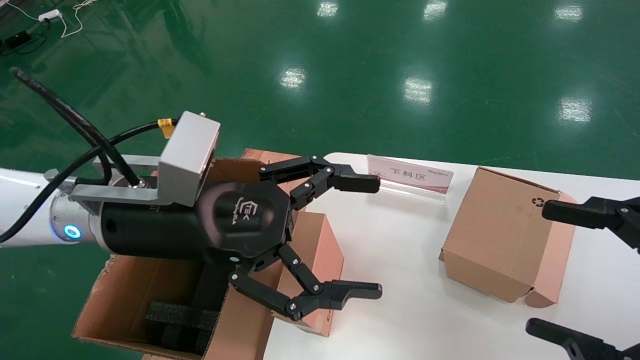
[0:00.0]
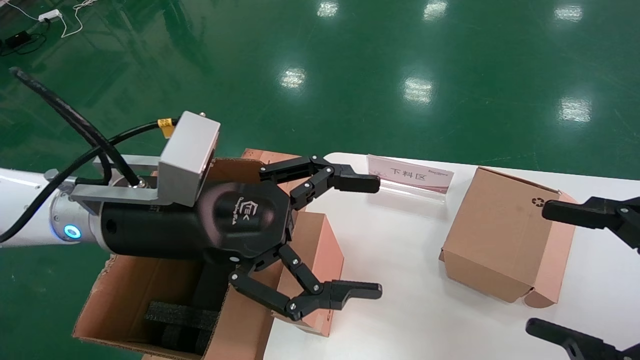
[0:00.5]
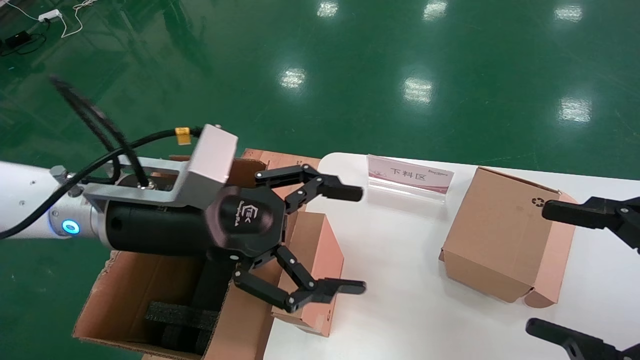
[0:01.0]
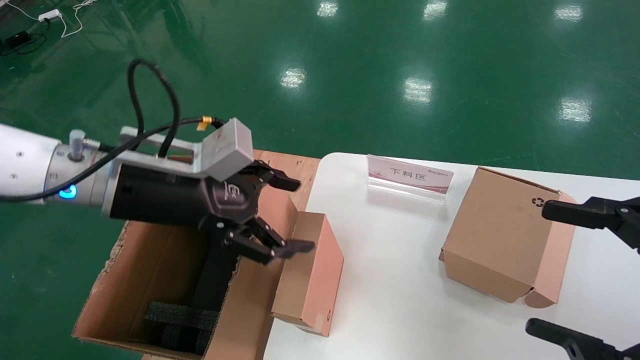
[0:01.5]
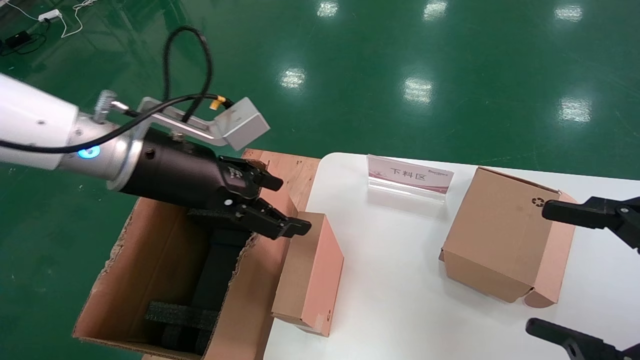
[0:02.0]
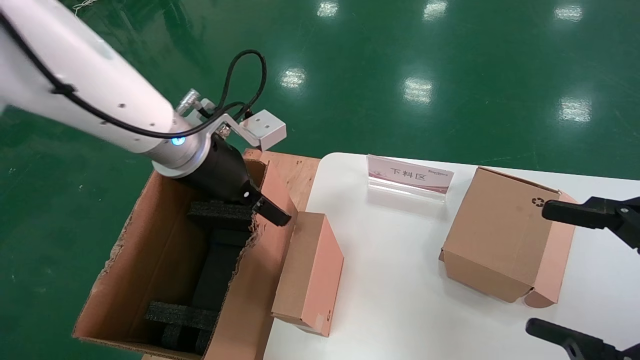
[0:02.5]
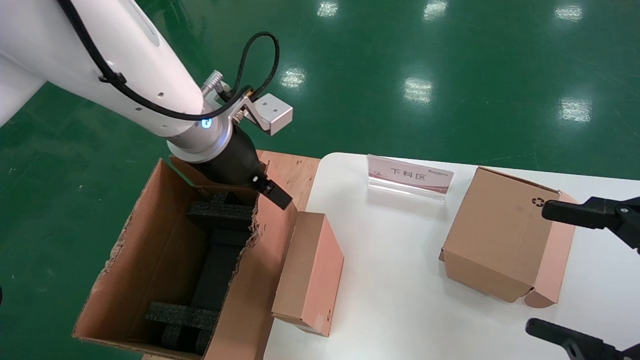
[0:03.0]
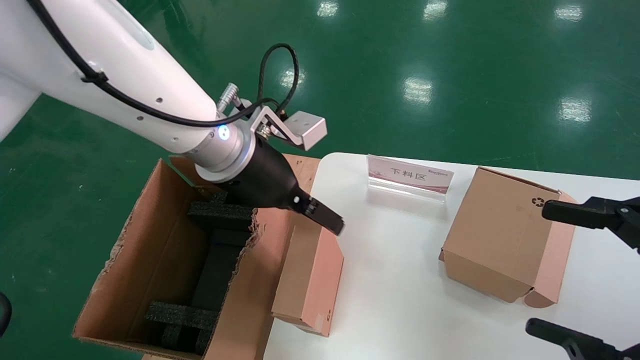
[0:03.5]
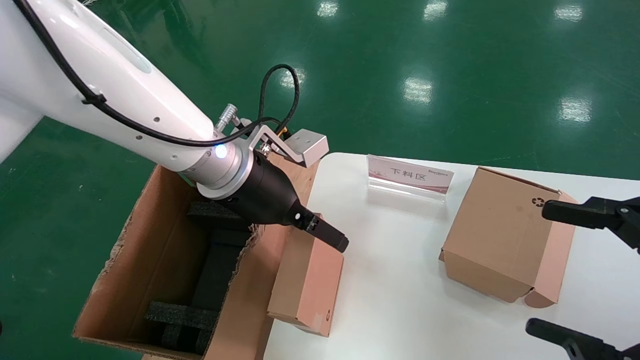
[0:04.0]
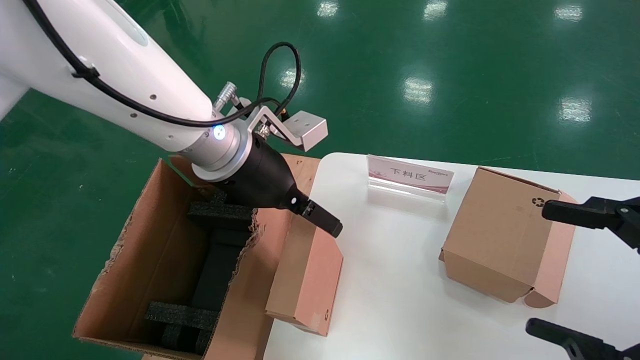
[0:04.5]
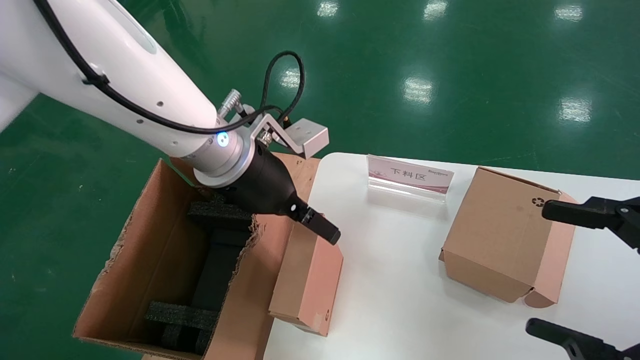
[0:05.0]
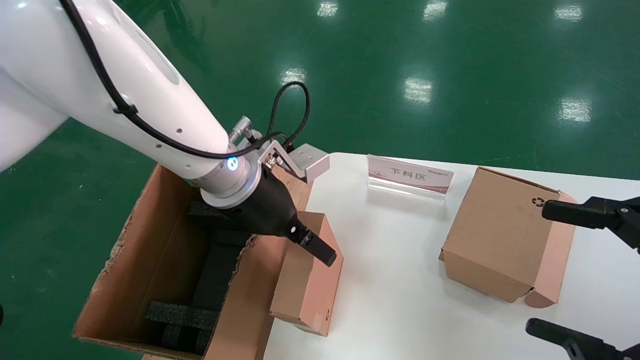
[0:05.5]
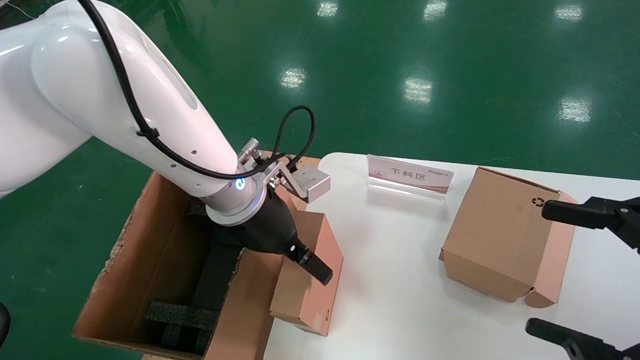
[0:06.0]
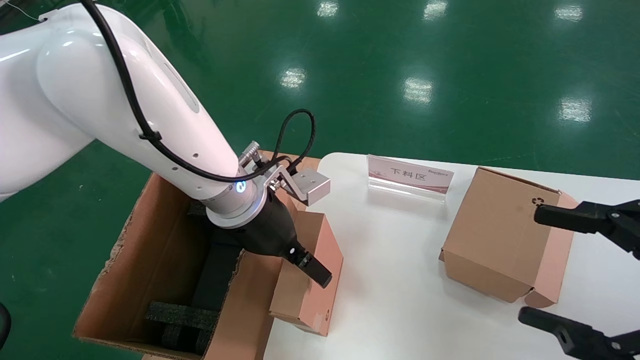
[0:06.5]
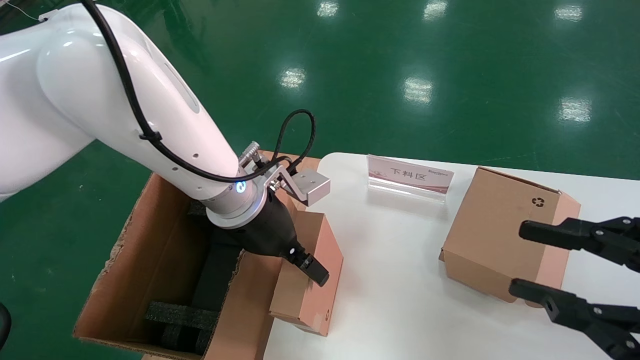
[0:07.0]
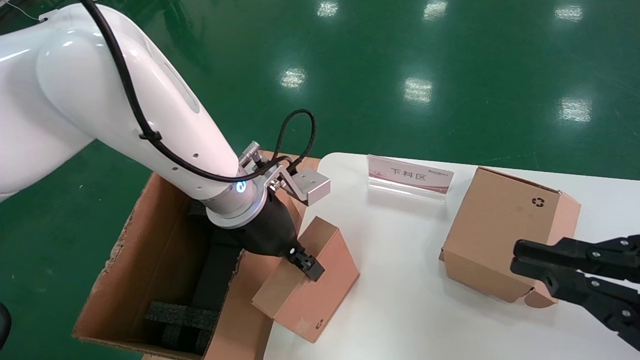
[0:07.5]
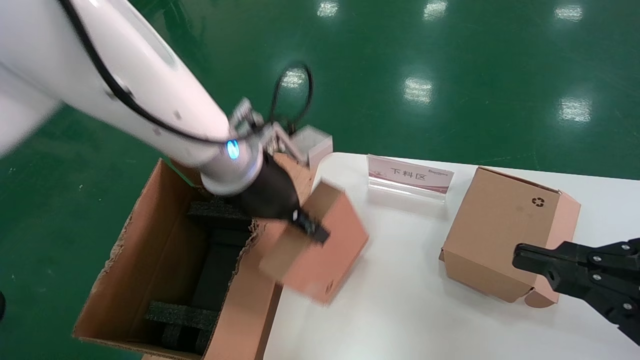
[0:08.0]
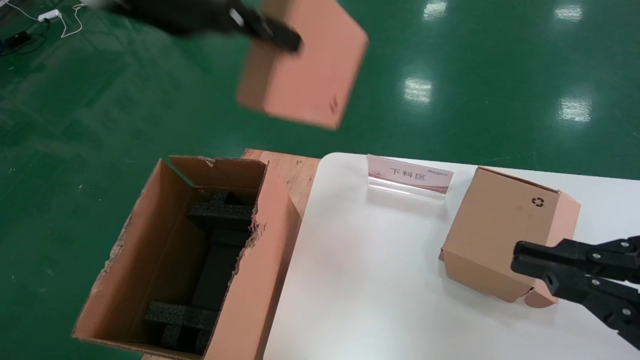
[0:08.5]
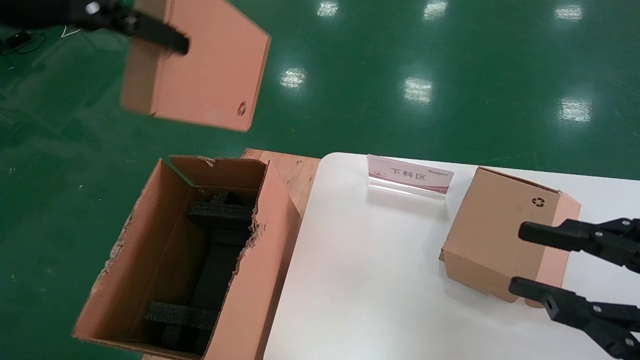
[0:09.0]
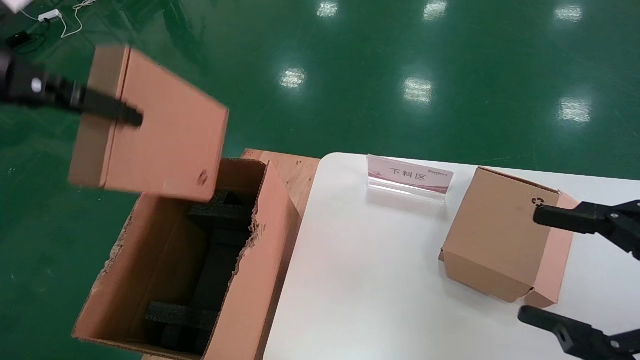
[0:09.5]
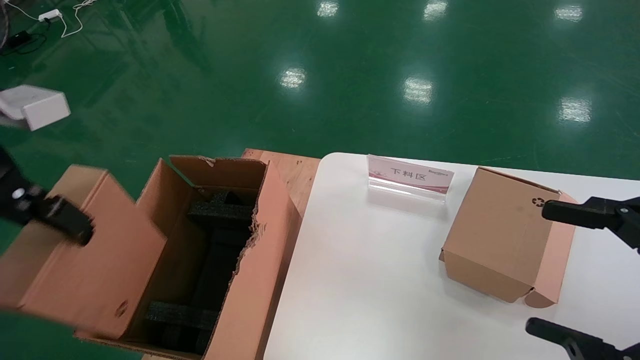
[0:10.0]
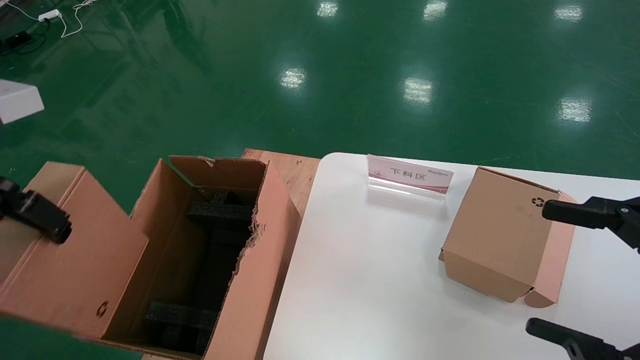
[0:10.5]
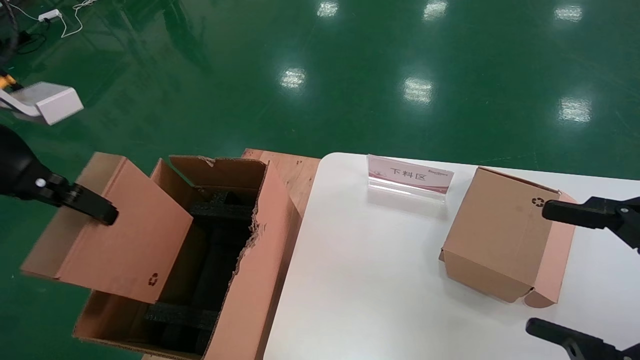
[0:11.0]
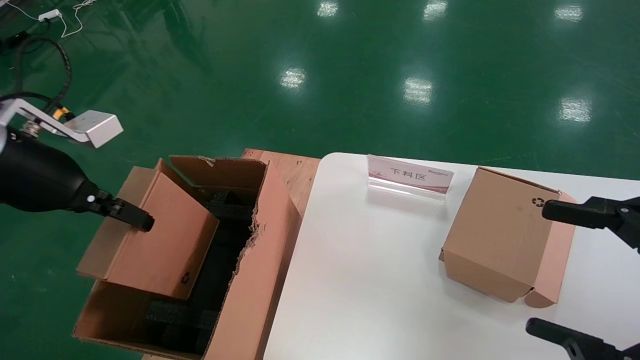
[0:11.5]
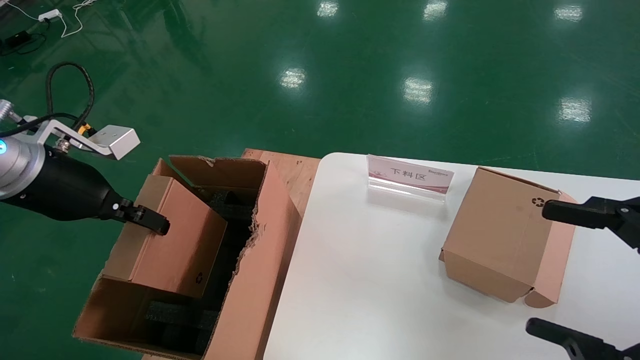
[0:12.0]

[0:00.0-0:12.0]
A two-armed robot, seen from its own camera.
Task of the whole recording: put the box on the table into the big box.
Step, 0:00.0 to 0:07.5: Grasp the paper box.
0:00.0 to 0:02.0: The left gripper heads forward, covering roughly 5 cm.
0:02.0 to 0:04.0: The left gripper shifts some 10 cm to the right.
0:04.0 to 0:06.0: The grippers stay close to where they were, moving slightly.
0:06.0 to 0:08.0: The left gripper shifts approximately 10 cm upward, and closes its fingers; the right gripper closes.
0:08.0 to 0:10.0: The right gripper opens up, while the left gripper moves to the left and backward, roughly 25 cm.
0:10.0 to 0:12.0: The left gripper moves forward and downward, approximately 15 cm.

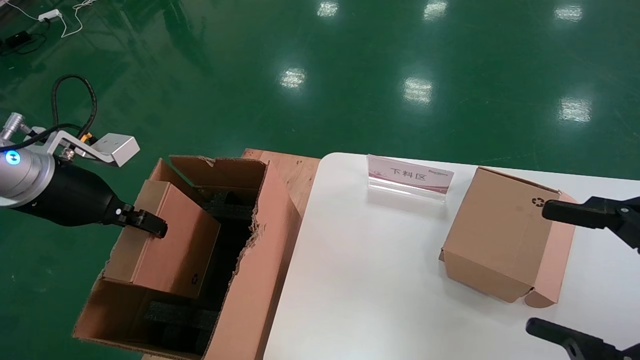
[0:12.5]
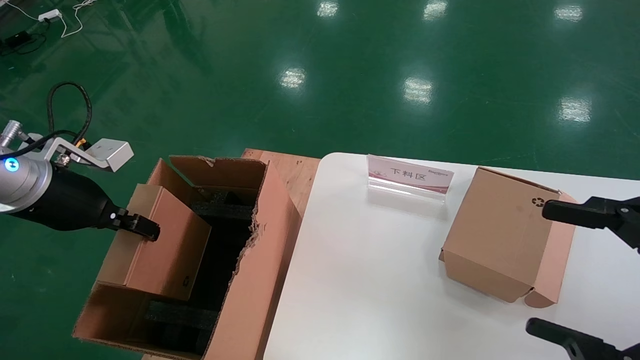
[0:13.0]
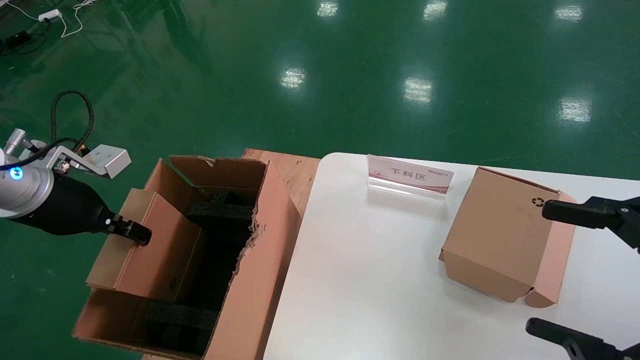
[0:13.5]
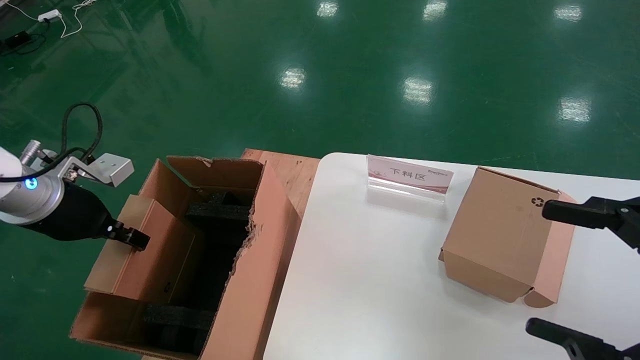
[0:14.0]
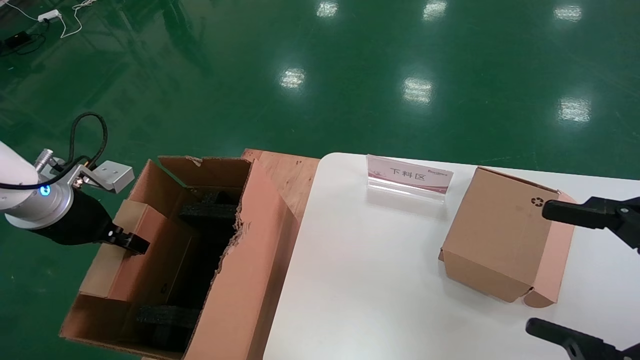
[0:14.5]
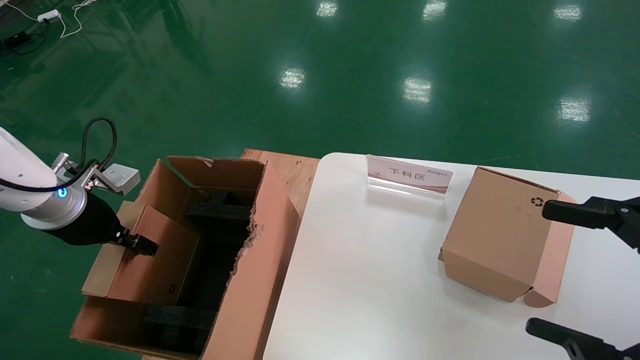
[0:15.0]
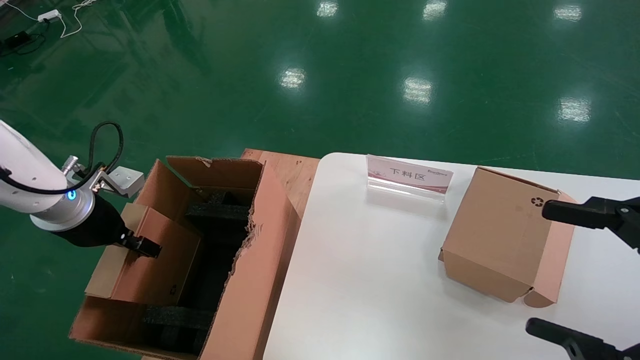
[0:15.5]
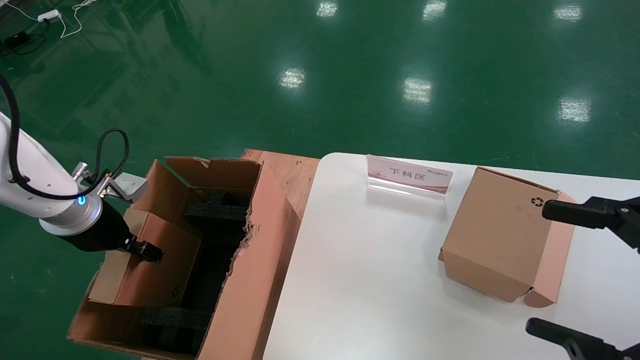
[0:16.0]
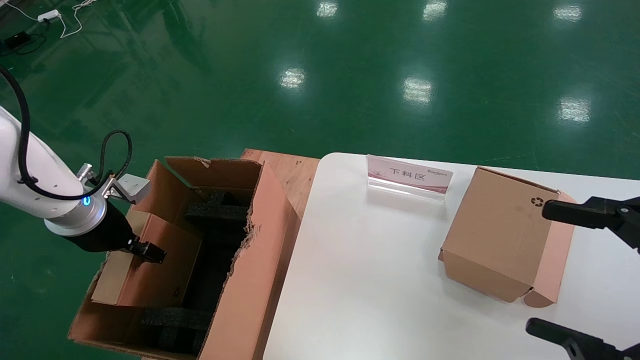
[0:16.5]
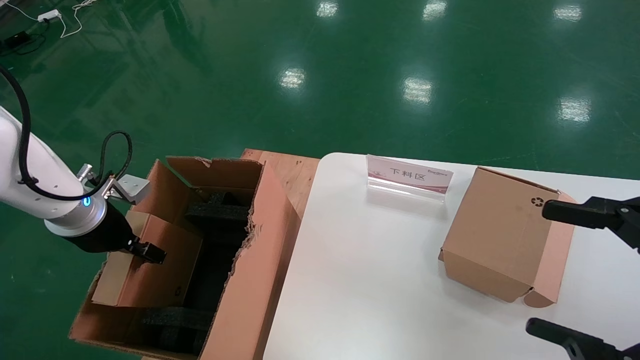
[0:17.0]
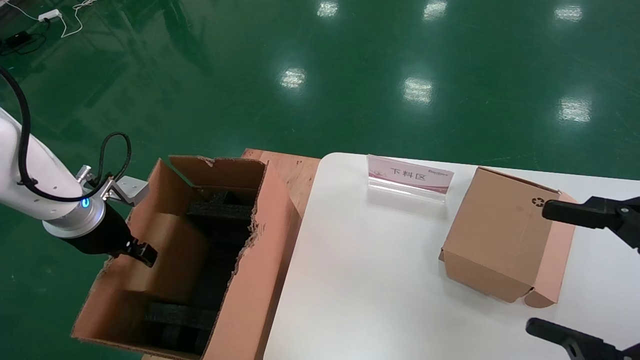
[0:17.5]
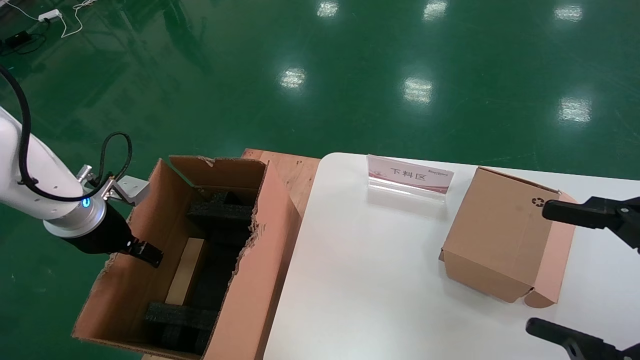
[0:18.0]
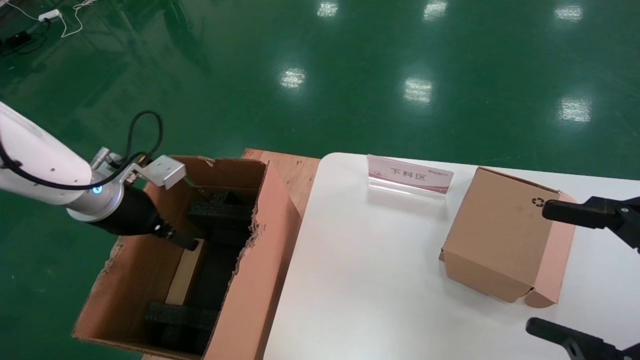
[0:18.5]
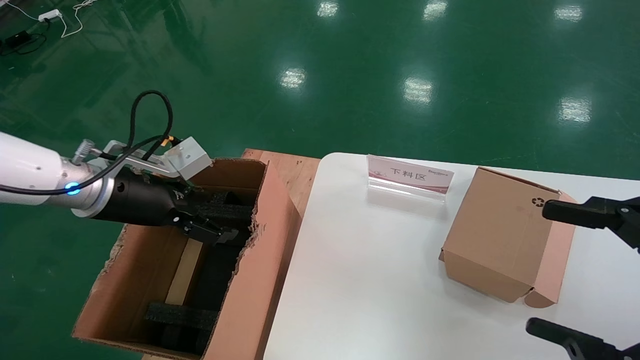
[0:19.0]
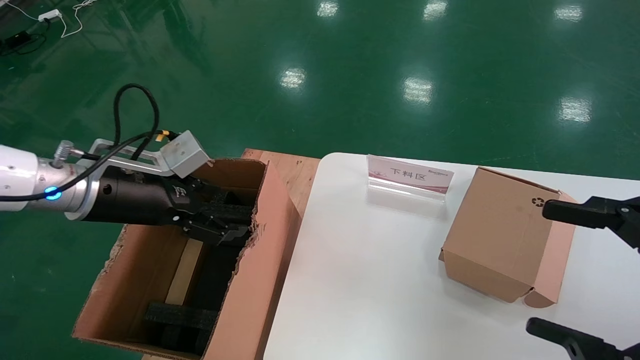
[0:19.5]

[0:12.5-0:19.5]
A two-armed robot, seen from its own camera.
Task of the whole recording: put the box on the table into the big box.
Step, 0:12.5 to 0:17.5: Place the paper box in the another big box.
0:12.5 to 0:14.5: The left gripper shifts some 5 cm downward.
0:14.5 to 0:16.0: The grippers move only a little.
0:16.0 to 0:17.5: Neither gripper changes place.
0:17.5 to 0:19.5: The left gripper travels to the right and upward by about 10 cm, and opens.
